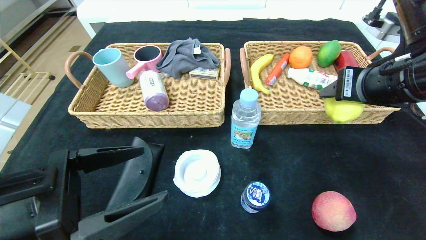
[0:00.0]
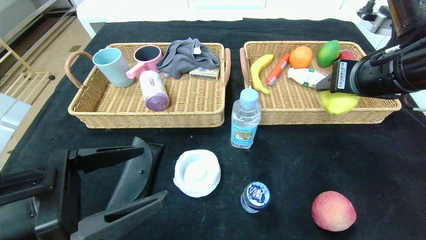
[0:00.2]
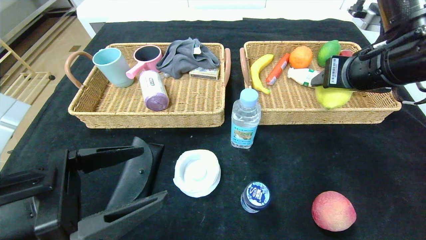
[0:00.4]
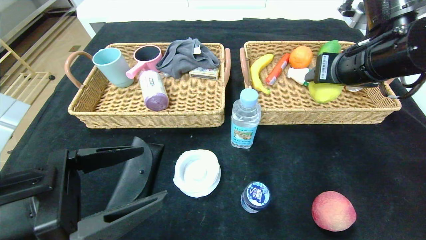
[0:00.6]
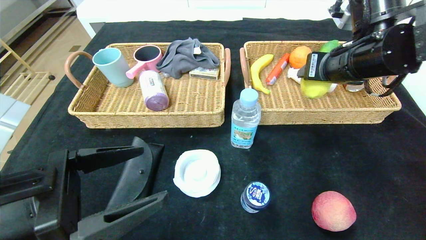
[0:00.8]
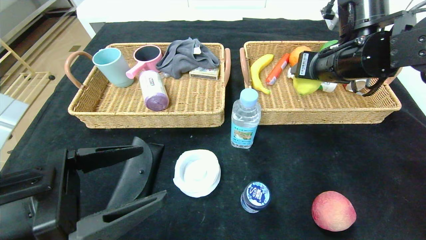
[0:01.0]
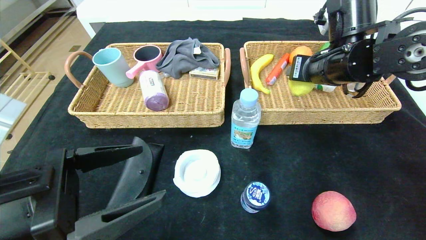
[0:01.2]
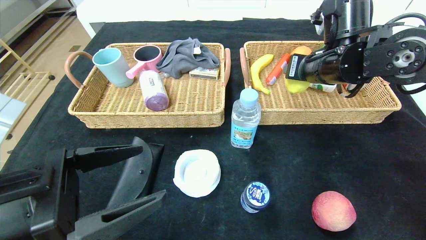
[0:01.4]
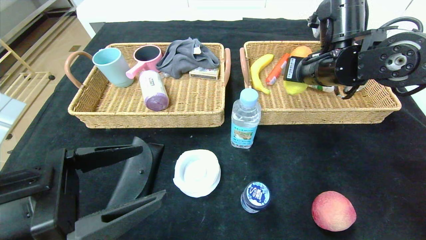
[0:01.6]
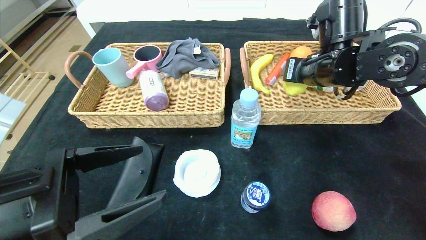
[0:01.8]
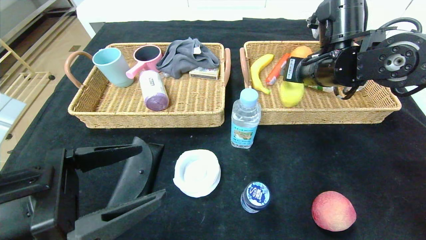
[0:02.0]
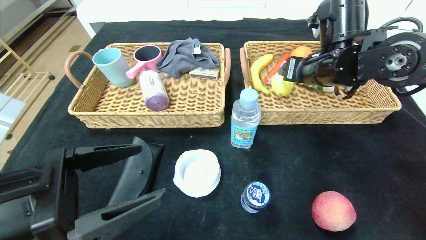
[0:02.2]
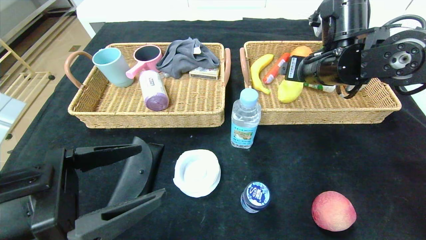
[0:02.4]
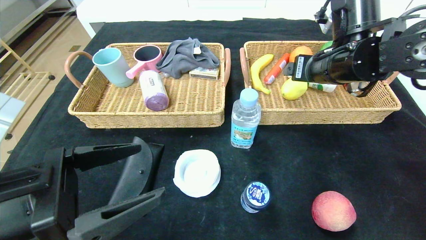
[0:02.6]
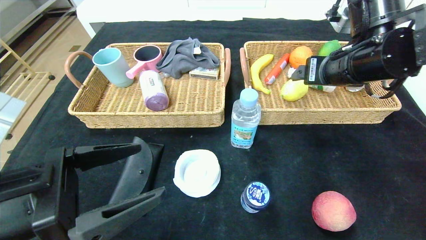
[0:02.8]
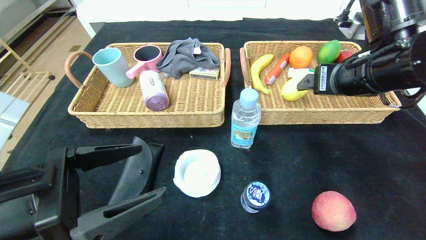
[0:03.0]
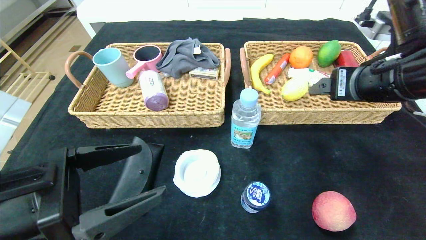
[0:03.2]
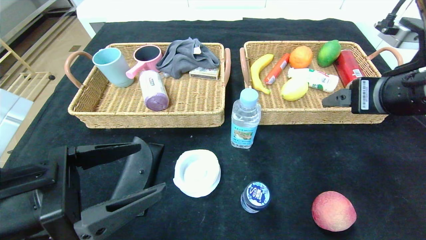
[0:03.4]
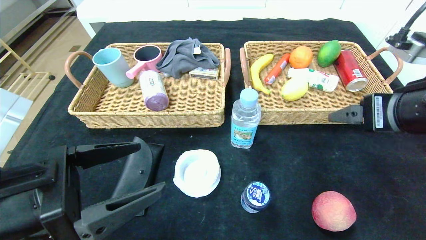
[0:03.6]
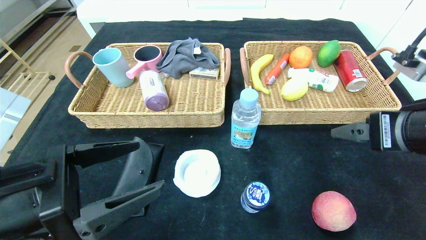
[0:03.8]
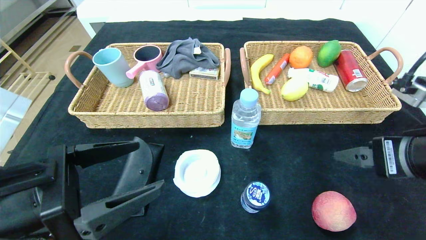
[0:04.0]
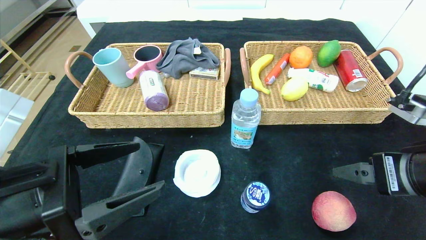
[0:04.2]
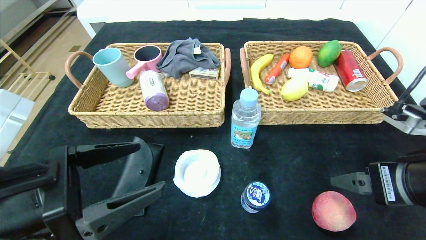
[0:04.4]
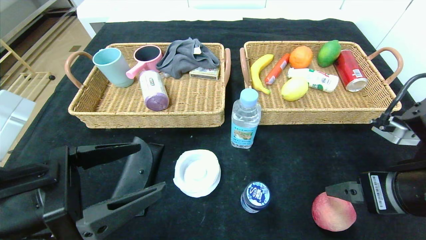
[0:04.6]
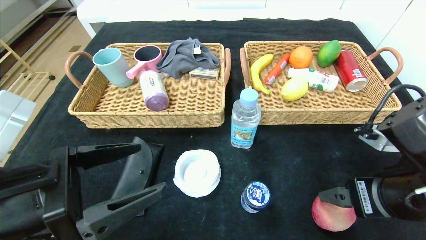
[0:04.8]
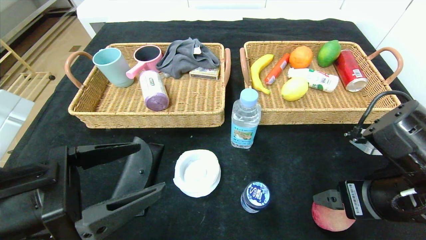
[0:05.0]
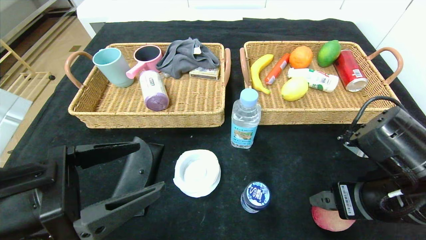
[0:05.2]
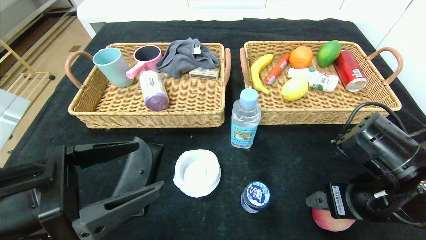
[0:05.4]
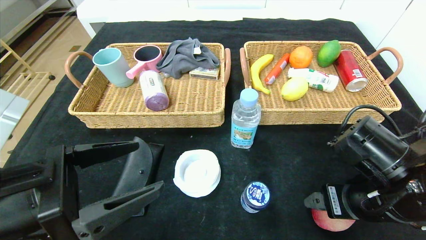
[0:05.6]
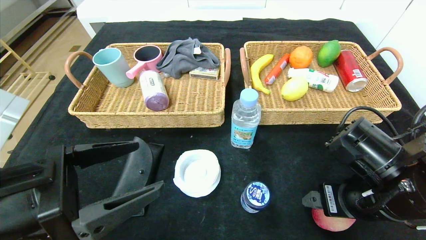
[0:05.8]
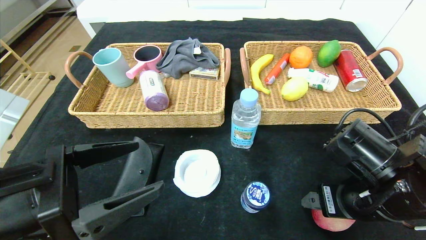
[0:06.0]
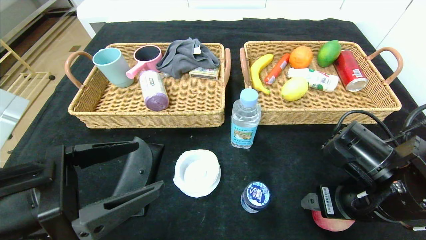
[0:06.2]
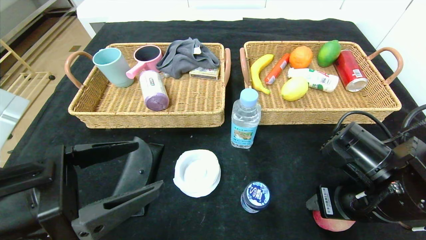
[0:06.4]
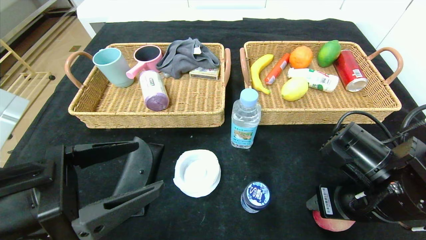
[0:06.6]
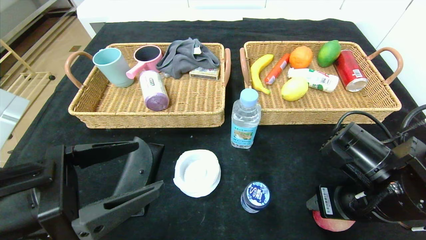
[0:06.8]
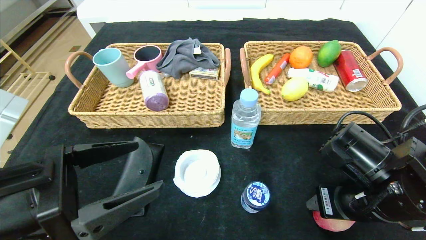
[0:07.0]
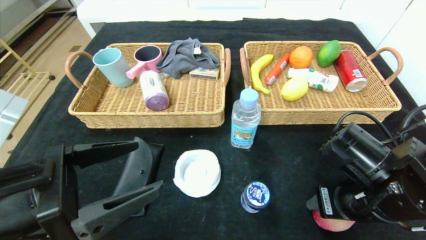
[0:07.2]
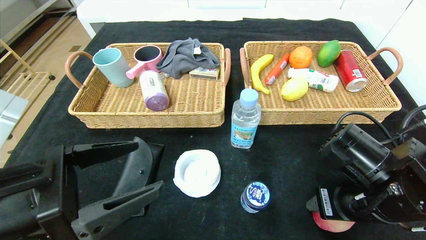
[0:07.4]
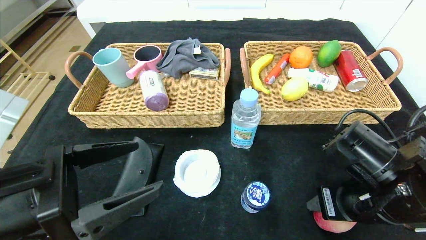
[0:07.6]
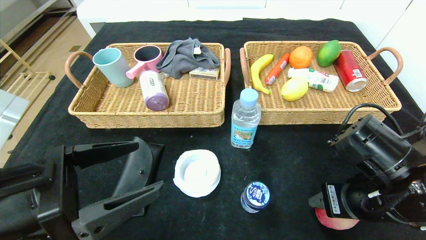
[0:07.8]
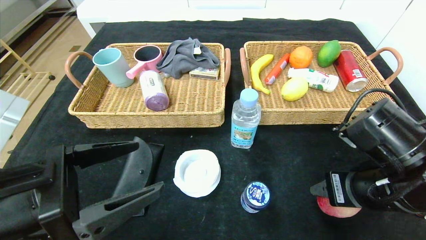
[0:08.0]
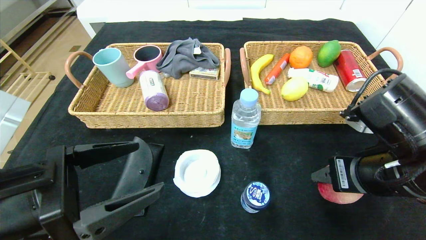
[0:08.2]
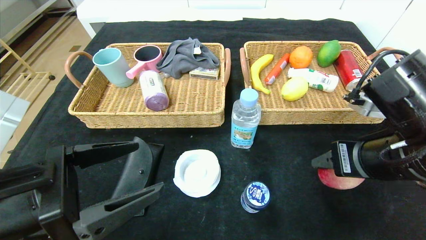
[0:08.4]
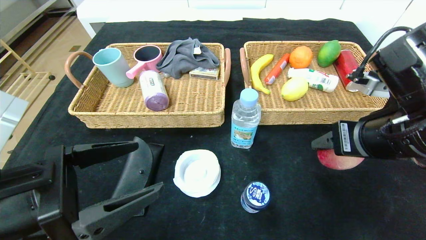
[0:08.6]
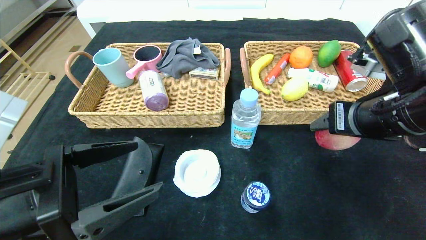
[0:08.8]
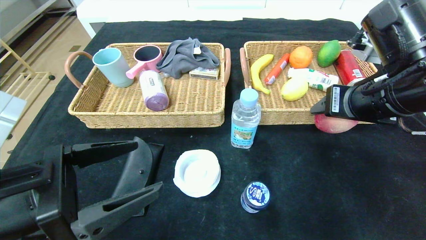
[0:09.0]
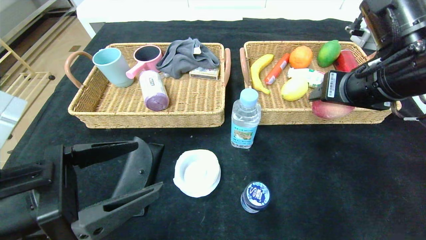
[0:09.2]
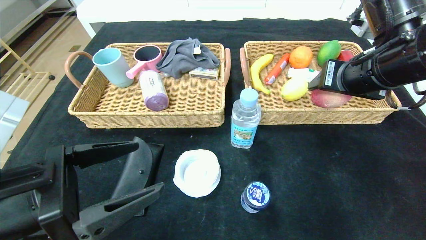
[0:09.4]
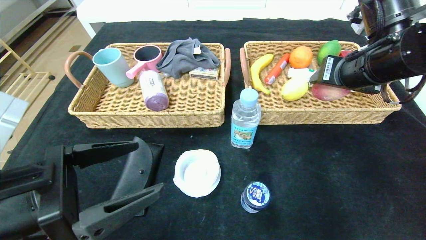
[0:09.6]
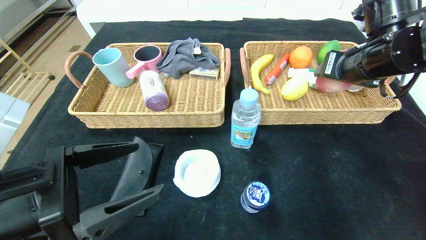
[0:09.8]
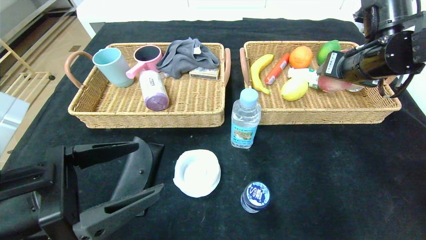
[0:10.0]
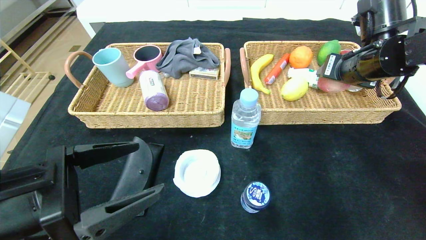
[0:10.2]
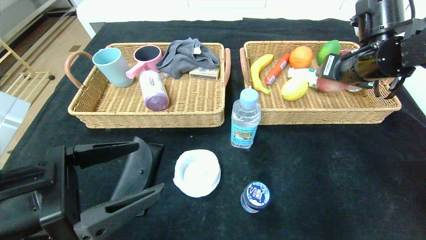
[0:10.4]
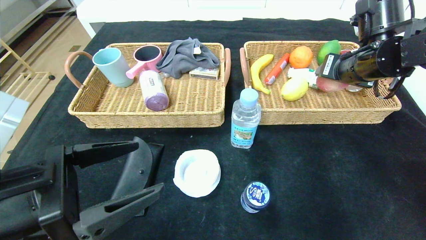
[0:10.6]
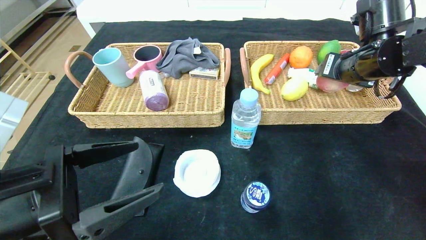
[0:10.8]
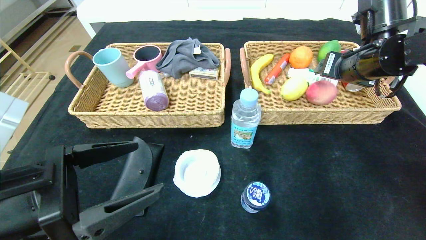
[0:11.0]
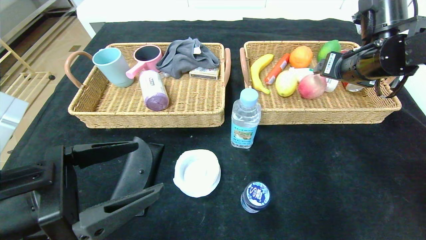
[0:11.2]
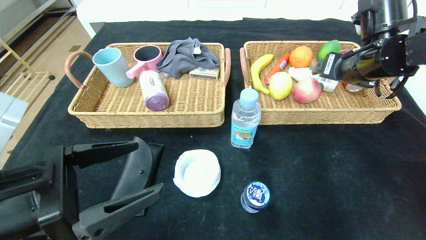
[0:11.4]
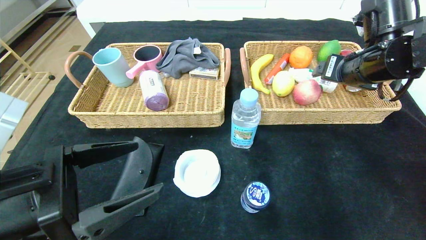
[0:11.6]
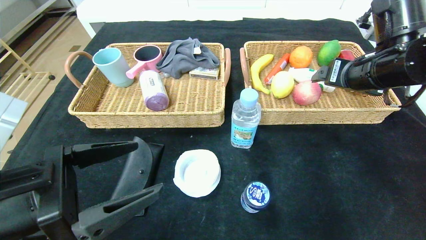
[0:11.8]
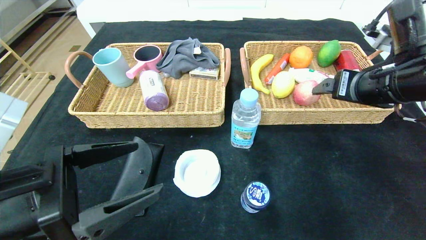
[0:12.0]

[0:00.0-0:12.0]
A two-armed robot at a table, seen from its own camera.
Step, 0:00.0 to 0:02.4: Grasp the lemon and put it in the right basket.
Step, 0:02.6 to 0:11.2: Grasp the peach and put it in the right basket.
0:00.0 to 0:01.6: The right gripper heads forward, covering about 10 cm.
0:01.6 to 0:03.0: The right gripper is displaced backward by about 10 cm, and opens.
0:03.0 to 0:04.4: The right gripper is displaced backward and downward by about 15 cm.
0:04.4 to 0:06.0: The right gripper travels downward by roughly 5 cm.
0:06.0 to 0:07.6: The right gripper closes.
0:07.6 to 0:09.0: The right gripper shifts approximately 15 cm upward and forward.
0:09.0 to 0:10.4: The right gripper moves forward, about 10 cm.
0:10.4 to 0:12.0: The right gripper travels backward by approximately 10 cm, and opens its fingers.

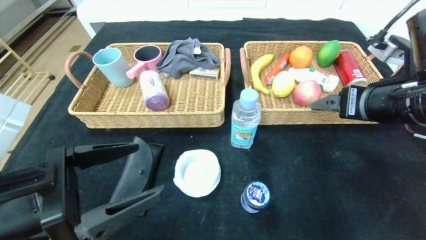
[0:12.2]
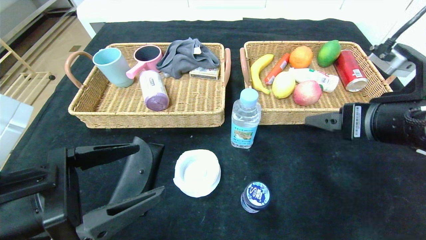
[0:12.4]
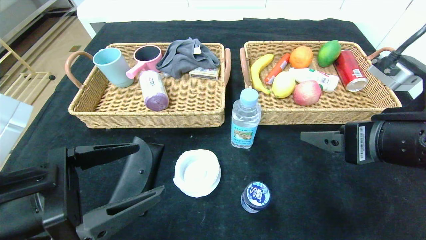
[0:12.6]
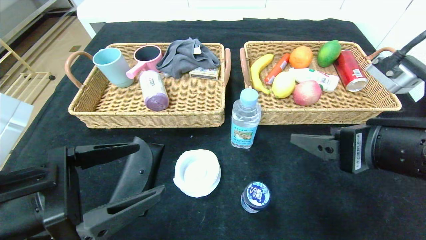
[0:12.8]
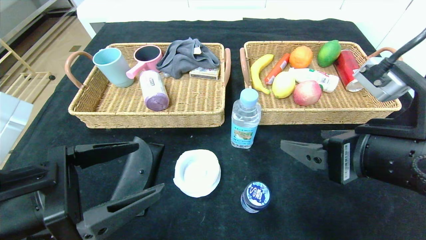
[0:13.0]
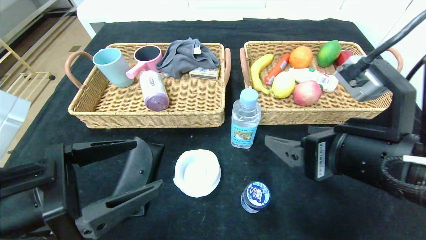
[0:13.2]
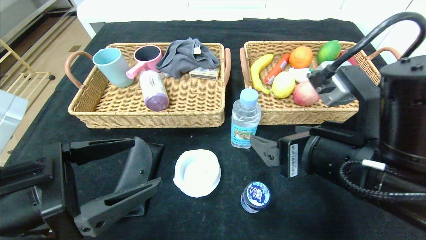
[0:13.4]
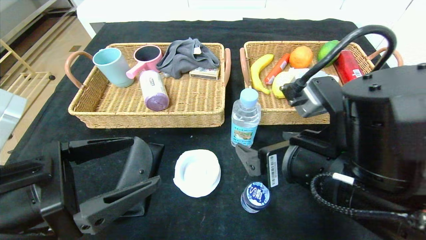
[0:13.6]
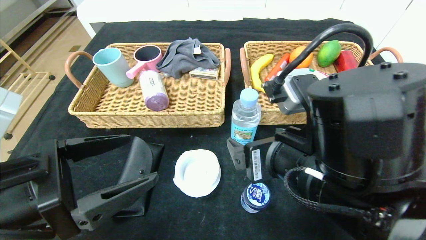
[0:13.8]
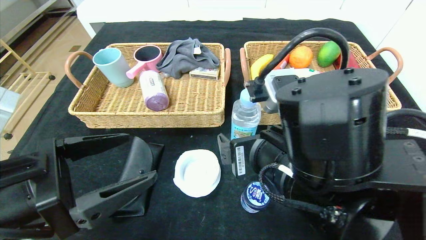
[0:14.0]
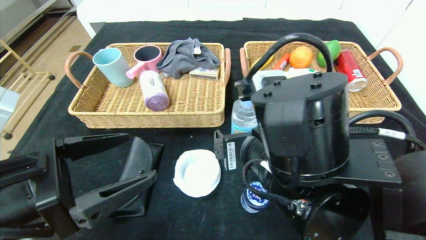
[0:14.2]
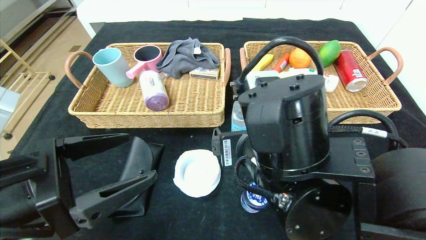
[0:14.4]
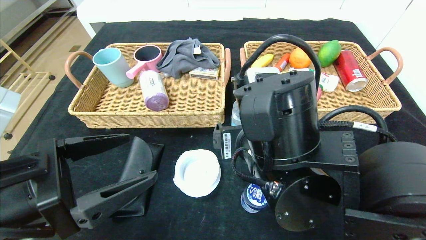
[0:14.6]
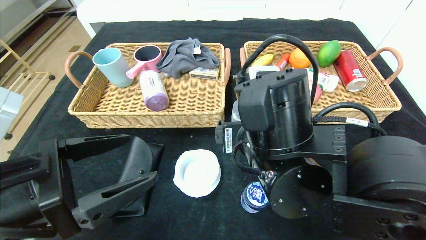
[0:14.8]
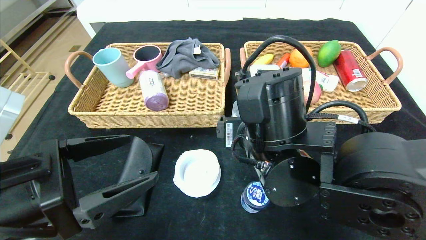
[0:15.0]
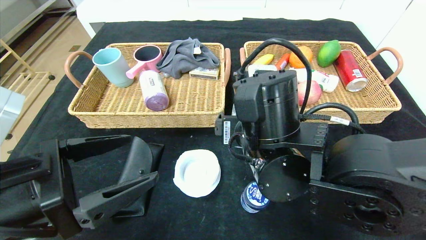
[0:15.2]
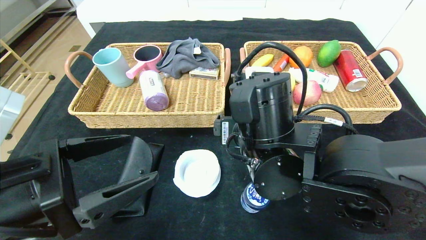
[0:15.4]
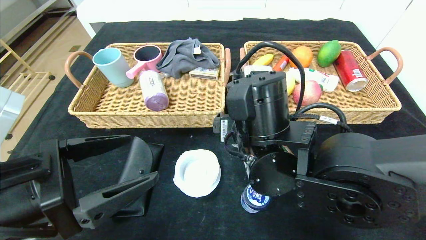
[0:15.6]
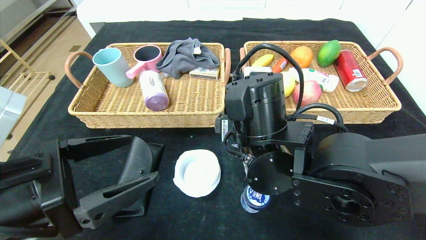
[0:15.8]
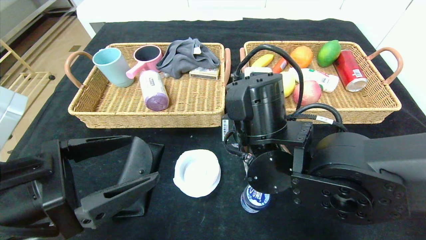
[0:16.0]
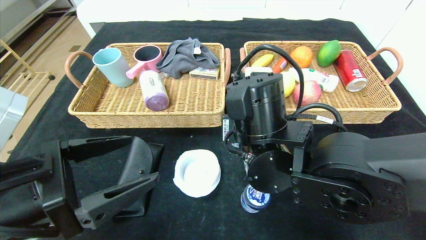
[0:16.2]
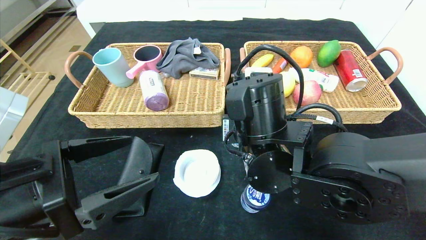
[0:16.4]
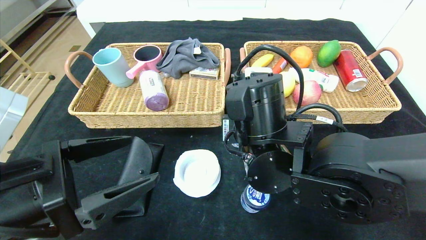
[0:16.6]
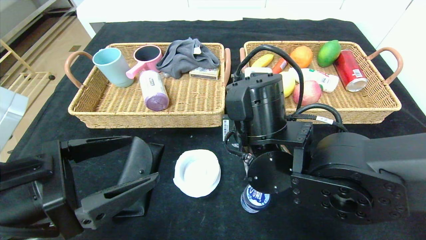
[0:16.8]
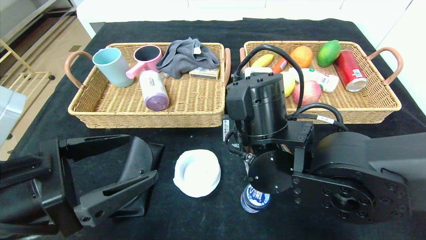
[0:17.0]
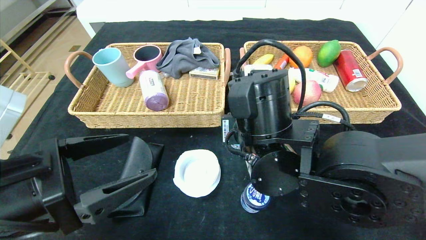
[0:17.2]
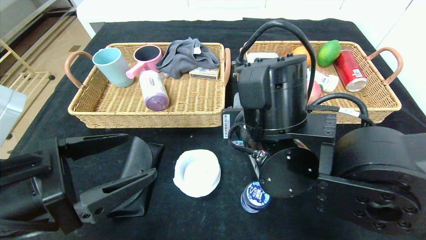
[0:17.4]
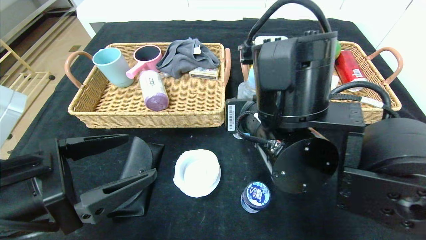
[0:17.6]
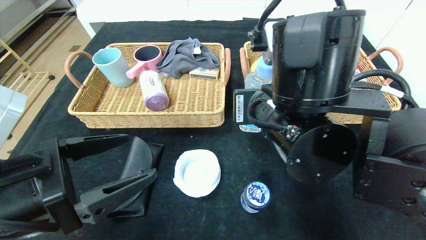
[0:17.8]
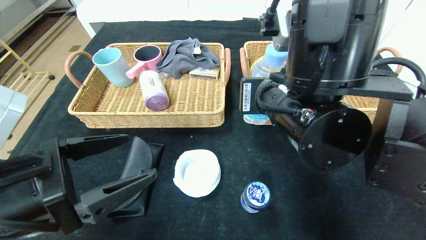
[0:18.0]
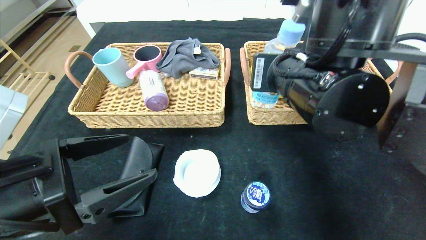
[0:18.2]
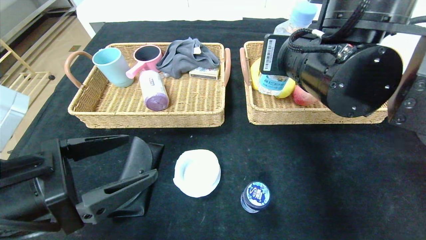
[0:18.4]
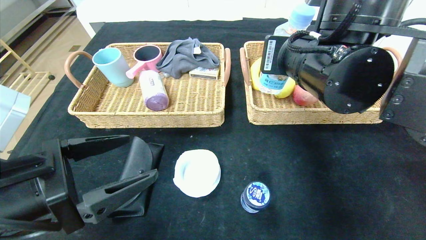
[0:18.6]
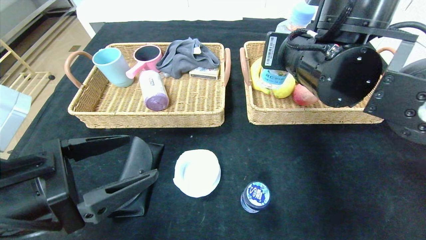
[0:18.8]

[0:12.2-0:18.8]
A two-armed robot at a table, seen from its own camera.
0:12.2 to 0:13.8: The right gripper shifts some 15 cm to the left and backward.
0:13.8 to 0:15.4: The right gripper is displaced forward by approximately 5 cm.
0:15.4 to 0:17.2: The right gripper closes.
0:17.2 to 0:18.8: The right gripper travels upward and to the right by some 10 cm.
